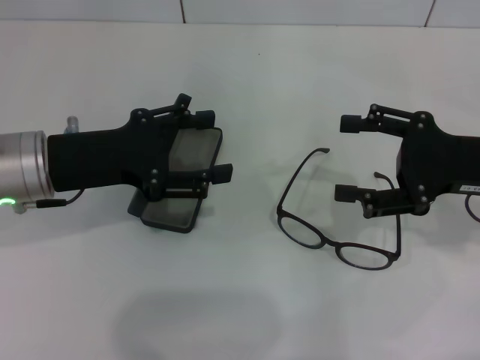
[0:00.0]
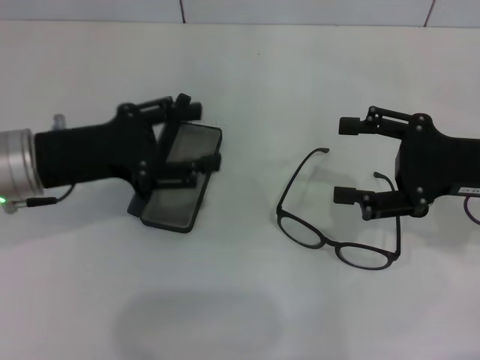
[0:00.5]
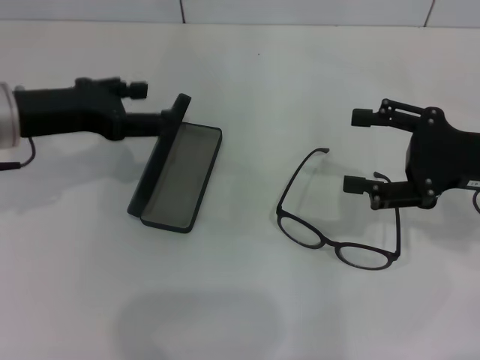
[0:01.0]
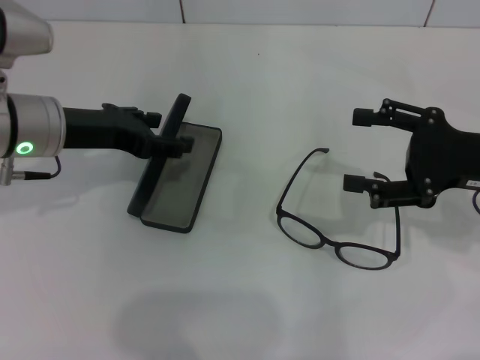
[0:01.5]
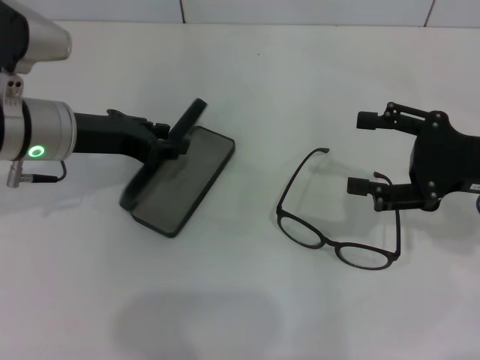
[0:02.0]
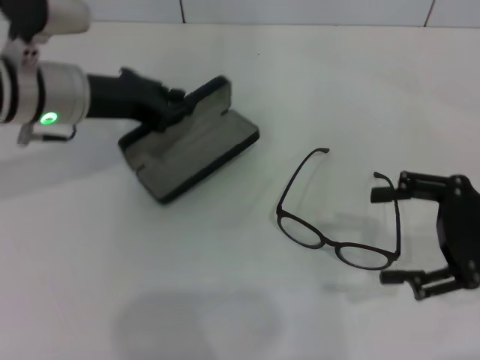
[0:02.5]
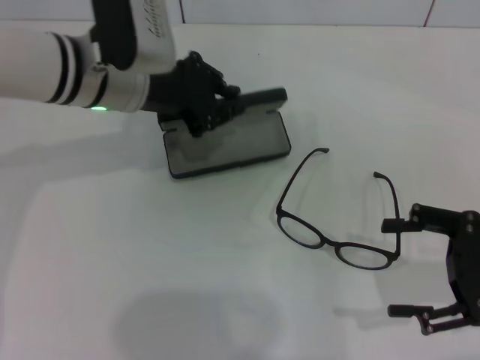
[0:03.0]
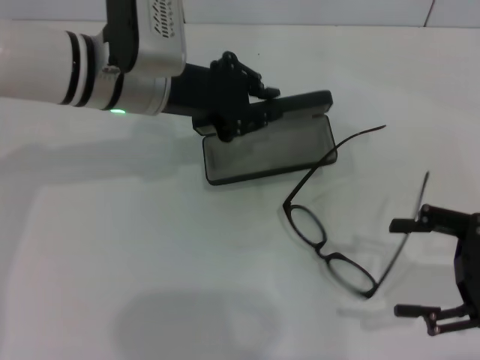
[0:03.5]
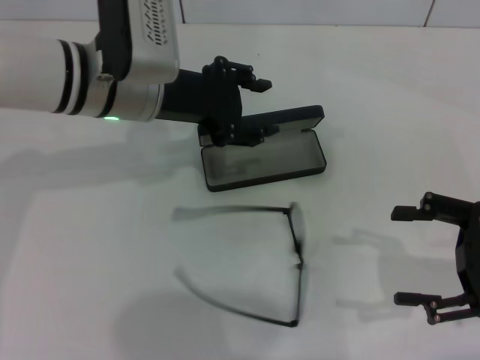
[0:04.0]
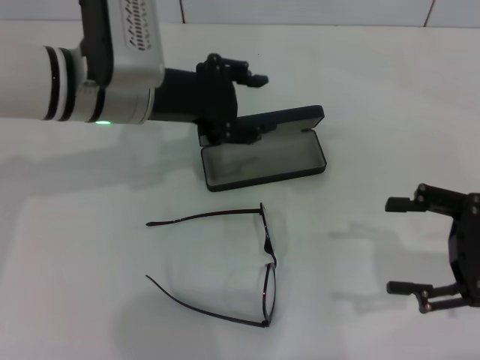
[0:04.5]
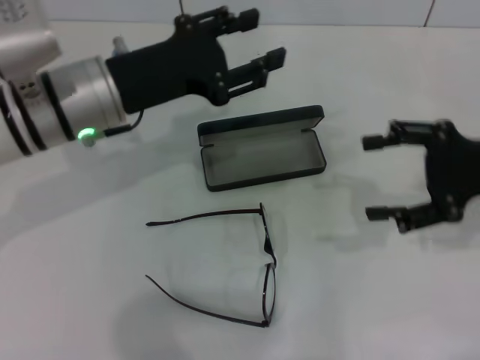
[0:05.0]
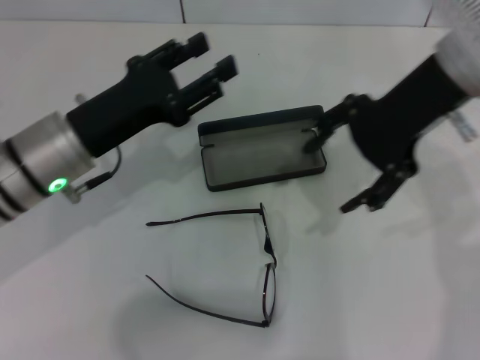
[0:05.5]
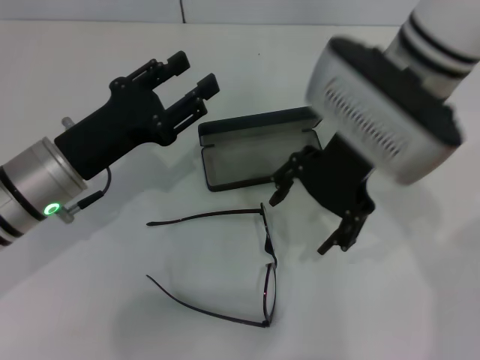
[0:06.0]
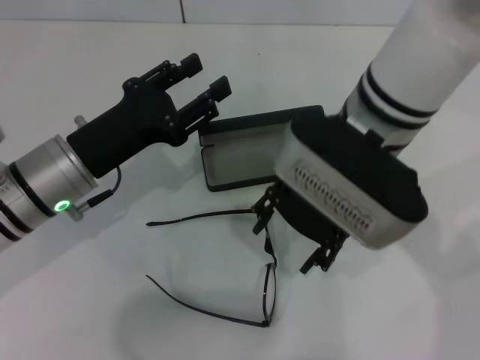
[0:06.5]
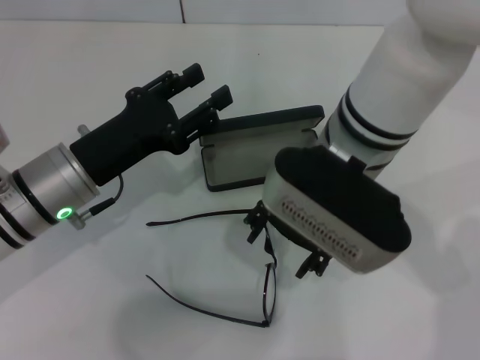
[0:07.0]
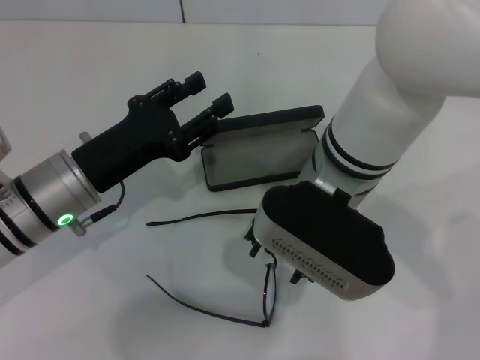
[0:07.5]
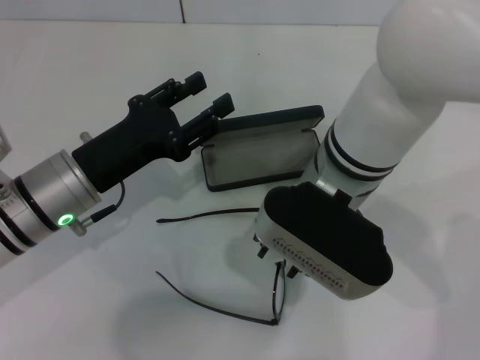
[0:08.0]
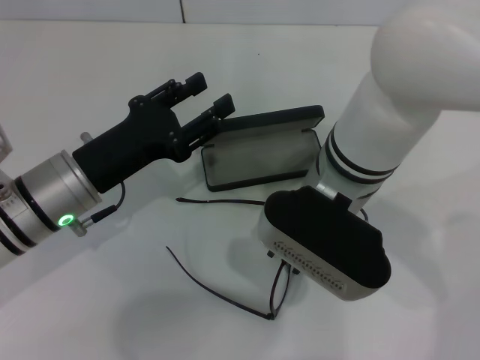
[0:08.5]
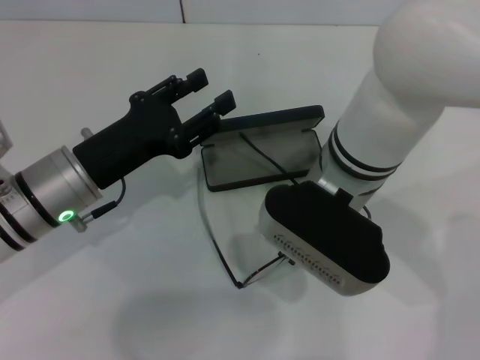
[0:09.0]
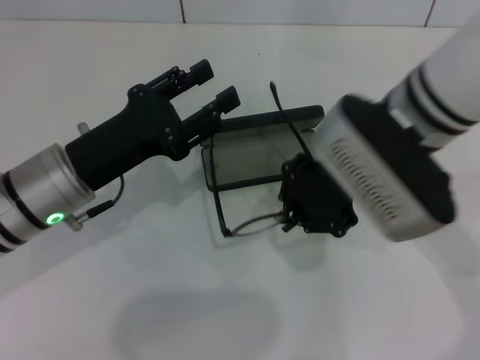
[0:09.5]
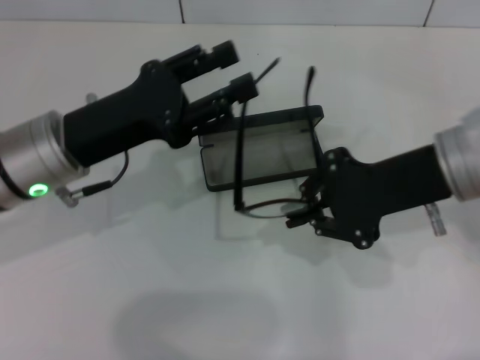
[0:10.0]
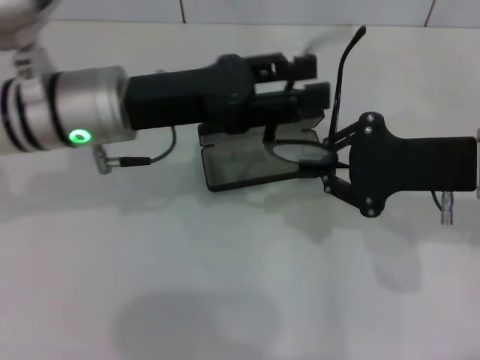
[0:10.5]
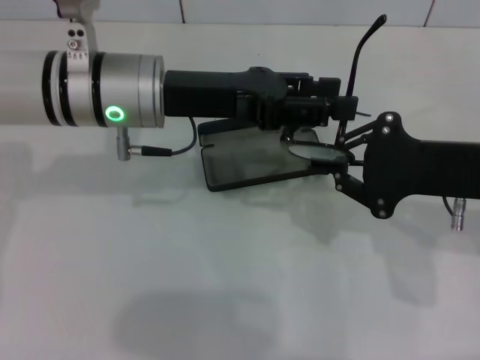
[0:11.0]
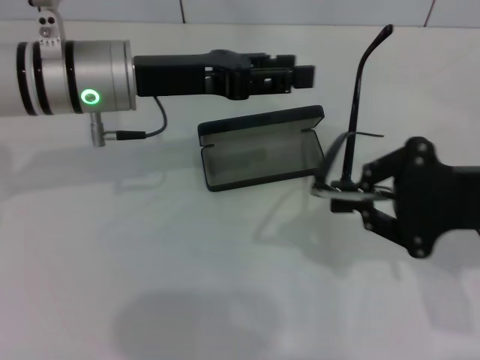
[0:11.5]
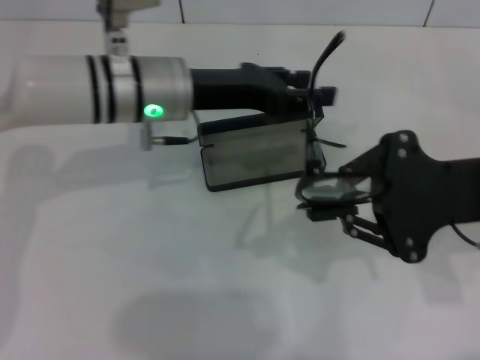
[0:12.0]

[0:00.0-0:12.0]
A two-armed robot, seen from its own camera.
Step, 0:00.0 to 0:02.0: Grab the glasses case with your left hand.
Step, 0:02.5 to 0:03.5: Place the glasses case in the center of the table with your left hand.
Step, 0:04.0 to 0:08.5: Grab the eyeglass frame with your right hand.
0:02.0 to 0:04.0: The right gripper shifts approximately 5 cm backward. The left gripper moves to the right, roughly 10 cm, and closes.
0:04.0 to 0:06.0: The right gripper shifts about 25 cm to the left, forward and upward; the left gripper goes approximately 15 cm backward, downward and to the left, and opens up.
0:06.0 to 0:08.0: The right gripper heads downward, covering roughly 5 cm, and closes up.
0:08.0 to 0:10.0: The right gripper moves to the right, about 15 cm, and closes up.
0:10.0 to 0:12.0: The left gripper shifts approximately 10 cm to the right and forward. The right gripper changes place by about 5 cm.

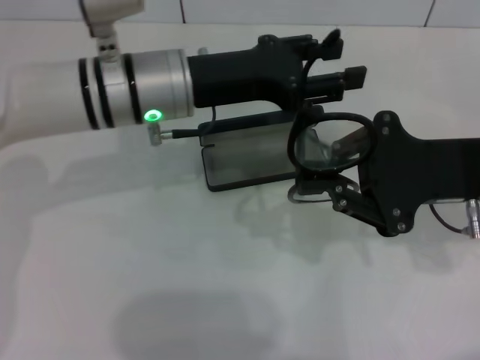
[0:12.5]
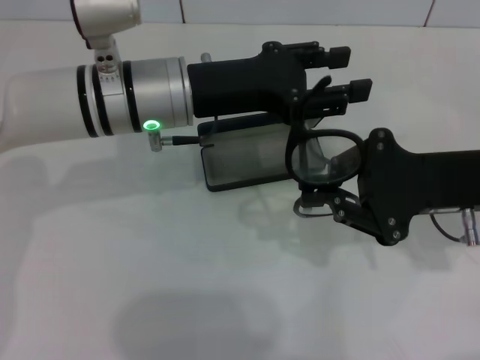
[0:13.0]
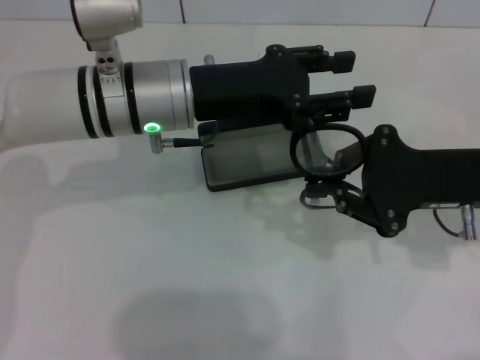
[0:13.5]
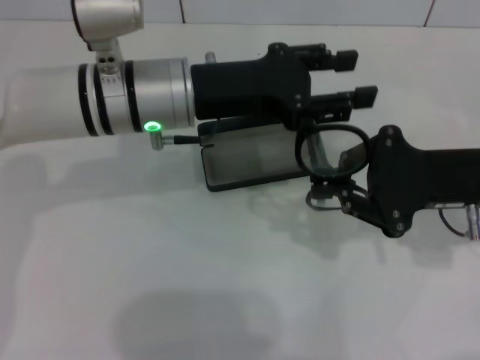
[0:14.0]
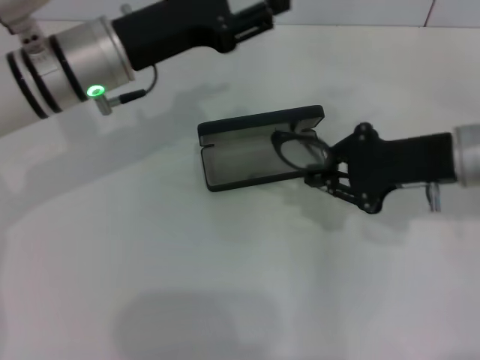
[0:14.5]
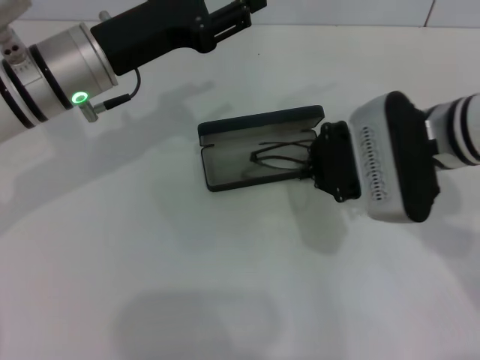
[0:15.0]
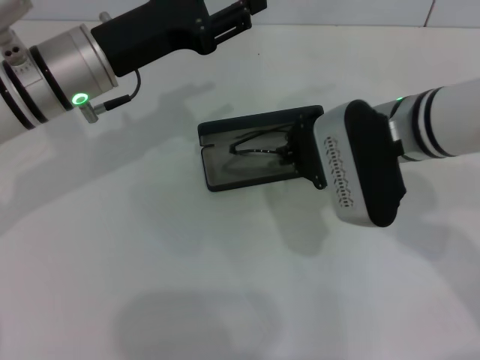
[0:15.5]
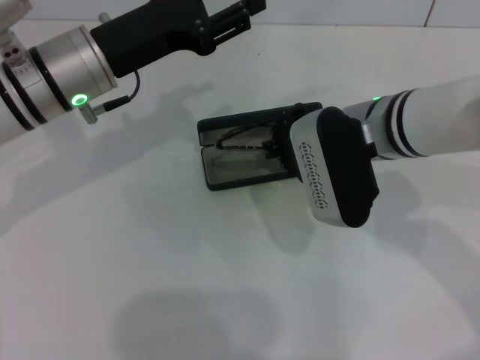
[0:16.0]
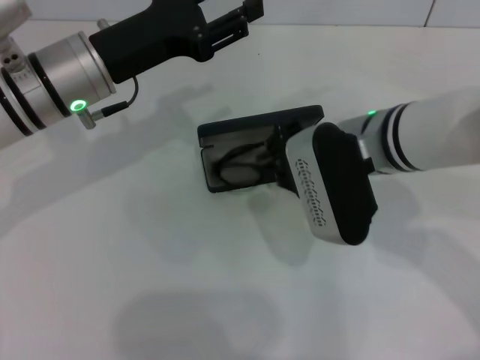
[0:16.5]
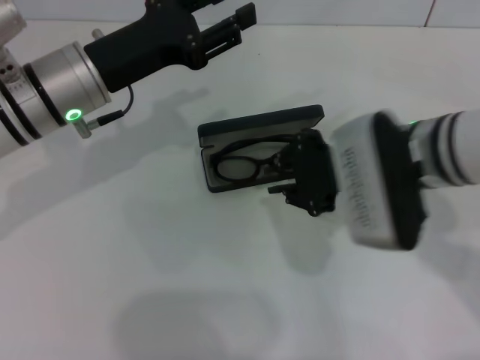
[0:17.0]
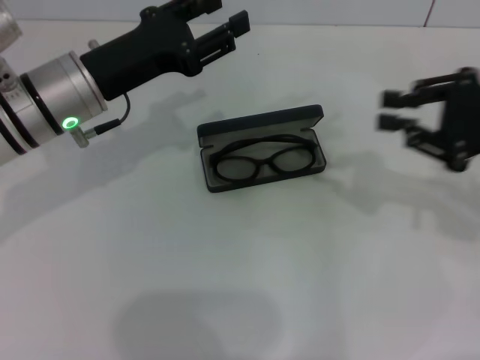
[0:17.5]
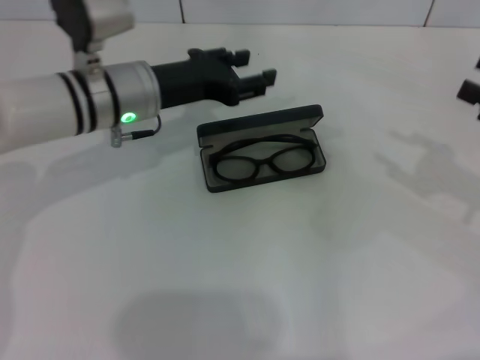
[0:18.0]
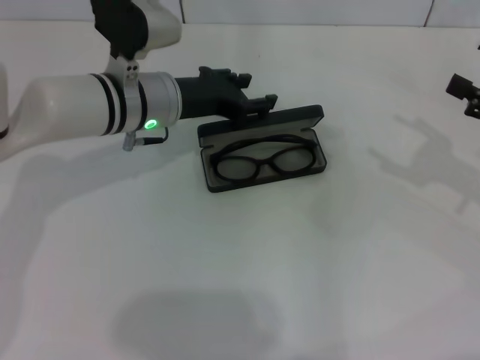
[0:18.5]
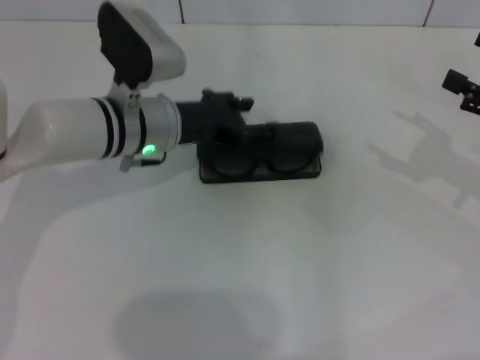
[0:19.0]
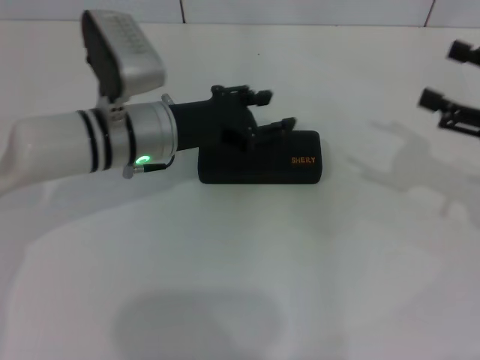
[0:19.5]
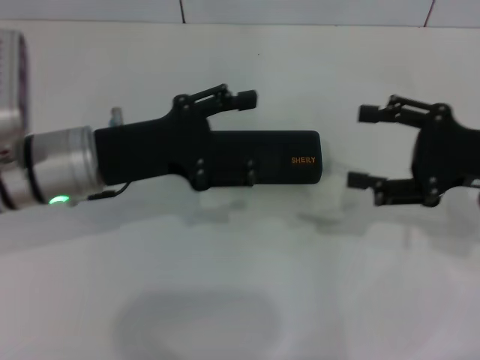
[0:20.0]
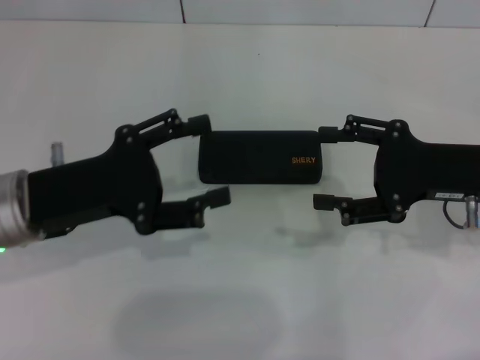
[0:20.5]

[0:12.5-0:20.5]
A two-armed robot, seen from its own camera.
Step, 0:14.5 to 0:16.5: Put the glasses into the case with your right hand.
Step, 0:17.0 to 0:19.0: Close the glasses case with your left hand.
0:12.5 to 0:14.5: The left gripper shifts some 5 cm to the left.
0:14.5 to 0:16.5: The right gripper moves to the left, about 10 cm.
0:16.5 to 0:18.5: The left gripper travels to the right by roughly 5 cm. The right gripper is displaced to the right by approximately 25 cm, and opens.
0:18.5 to 0:20.5: The left gripper travels backward and to the left by roughly 15 cm, while the right gripper goes about 10 cm to the left.

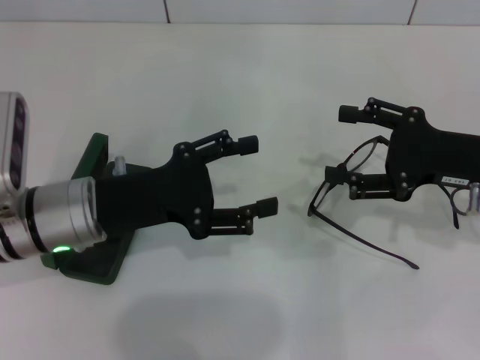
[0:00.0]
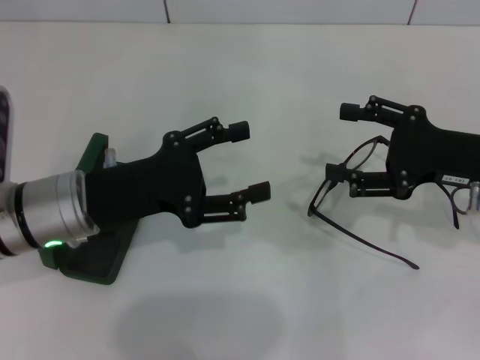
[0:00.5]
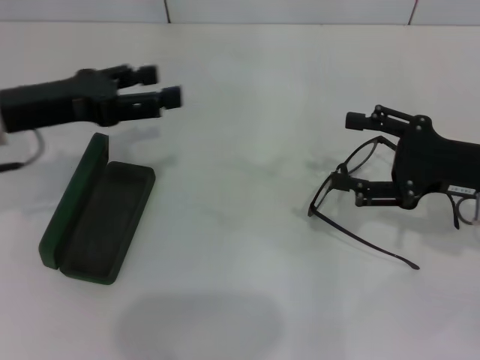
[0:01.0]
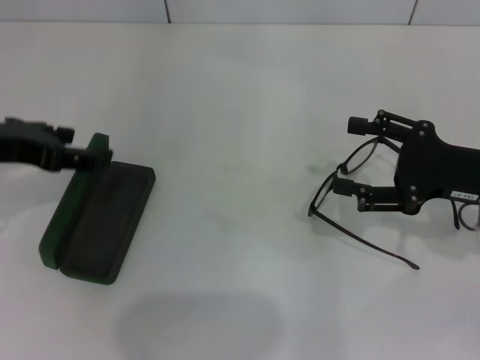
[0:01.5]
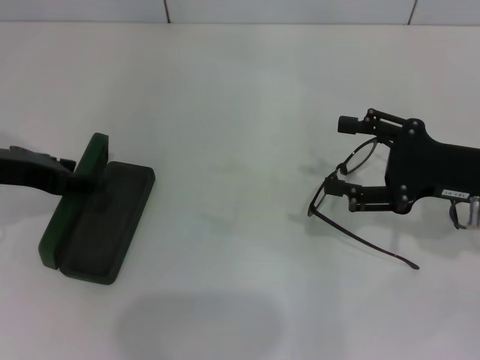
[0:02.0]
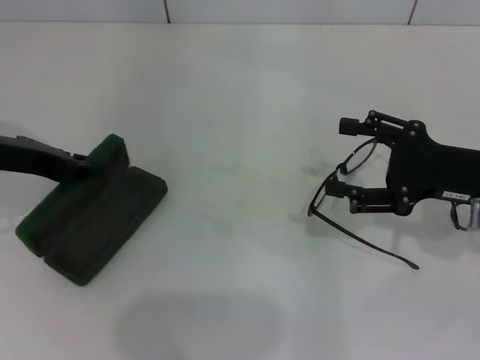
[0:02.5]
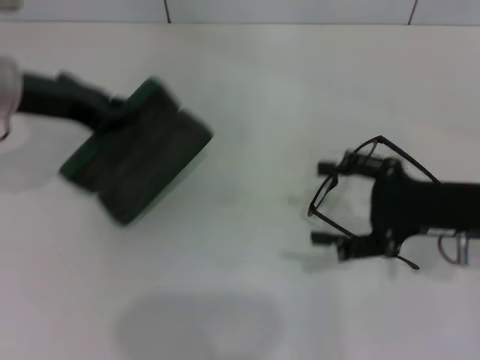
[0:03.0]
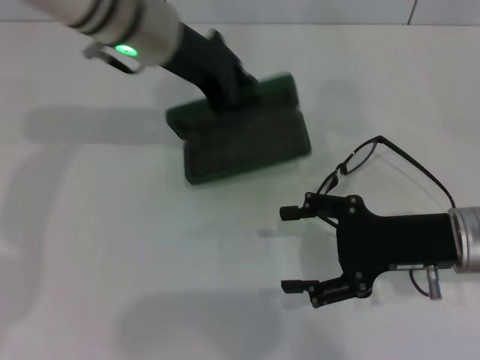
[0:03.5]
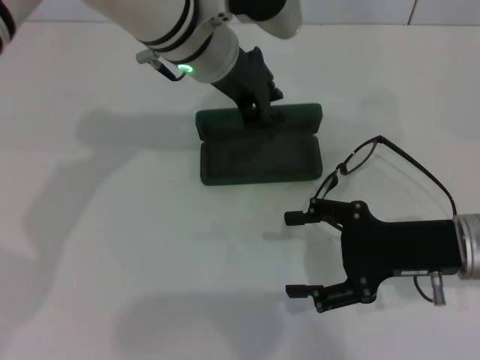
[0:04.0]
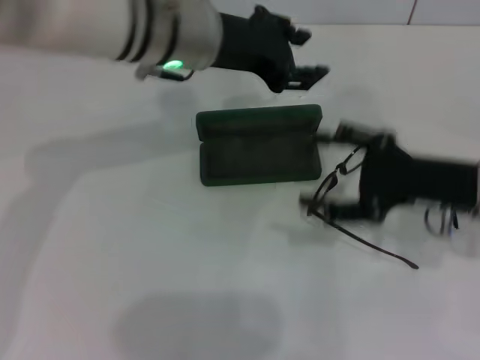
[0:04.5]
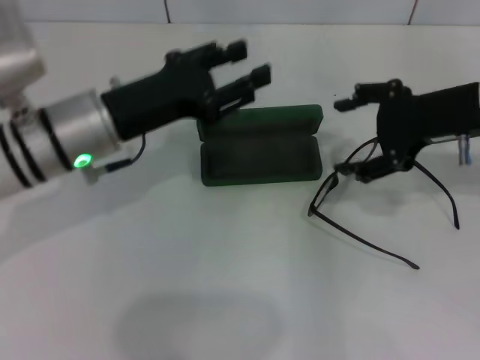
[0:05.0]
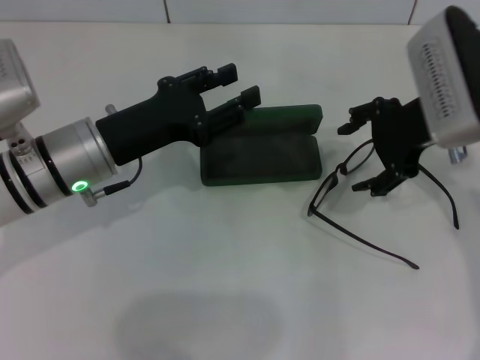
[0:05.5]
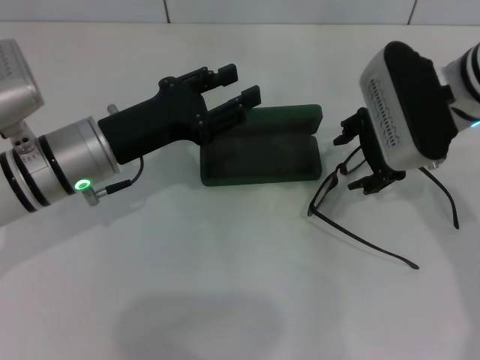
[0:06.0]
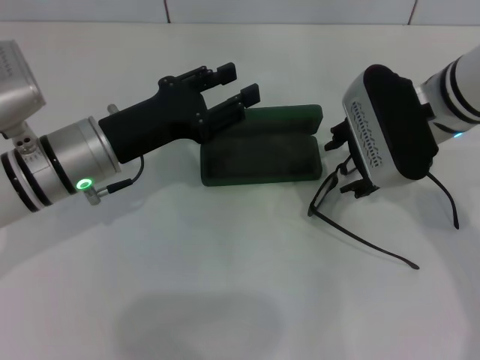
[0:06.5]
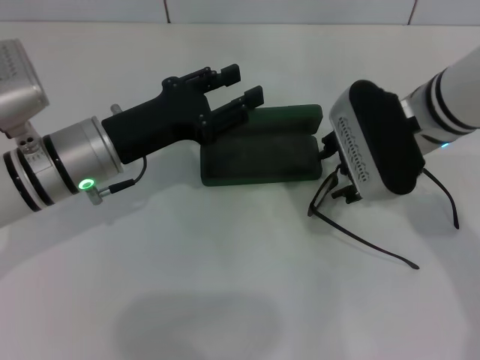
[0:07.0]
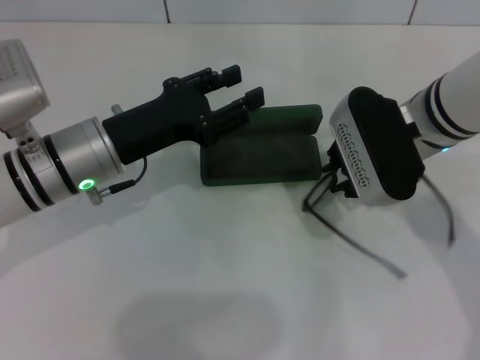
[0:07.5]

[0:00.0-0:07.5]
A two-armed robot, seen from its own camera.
Step, 0:00.0 to 0:02.0: Grab the glasses case with your left hand.
Step, 0:02.5 to 0:04.0: Place the glasses case in the center of the table with your left hand.
0:00.0 to 0:02.0: The left gripper moves to the left and upward, approximately 10 cm.
0:02.0 to 0:04.0: The left gripper moves to the right and forward, roughly 25 cm, and closes its fingers; the right gripper moves some 5 cm.
0:04.0 to 0:05.5: The left gripper travels to the left, backward and downward by approximately 20 cm, and opens up; the right gripper heads upward and forward, covering some 15 cm.
0:05.5 to 0:07.5: The right gripper ends up approximately 5 cm from where it was.
